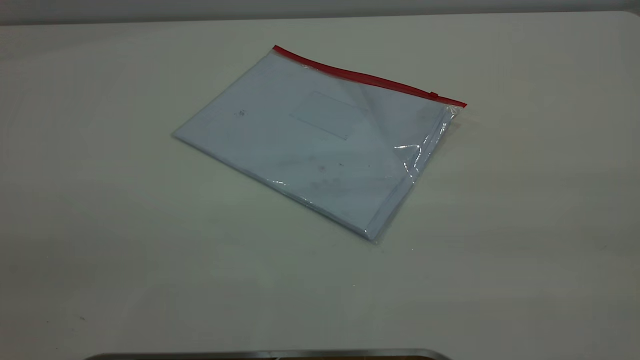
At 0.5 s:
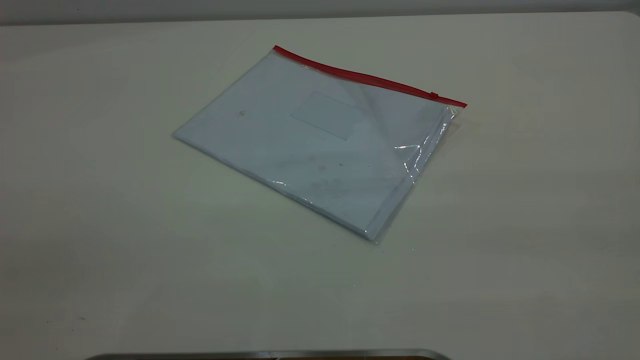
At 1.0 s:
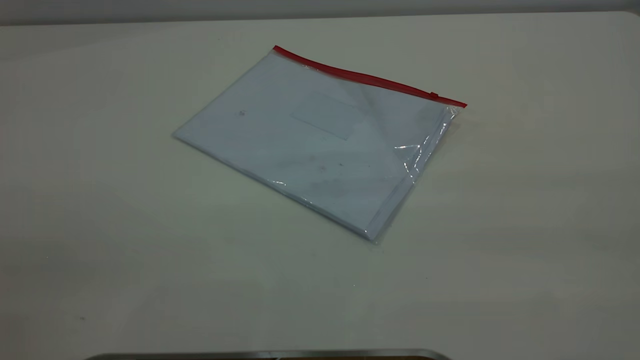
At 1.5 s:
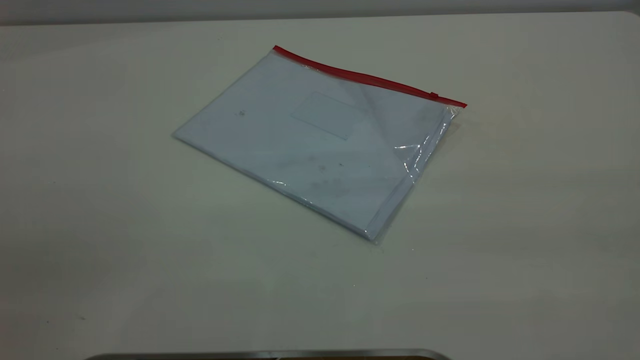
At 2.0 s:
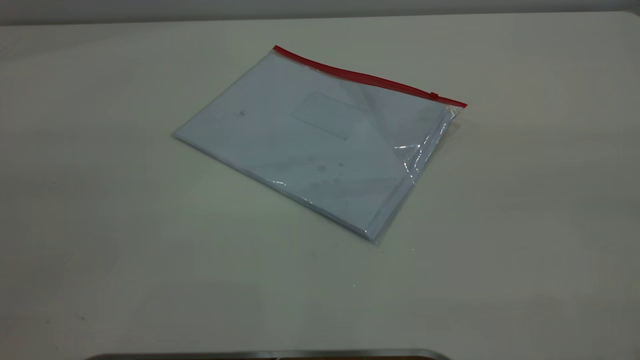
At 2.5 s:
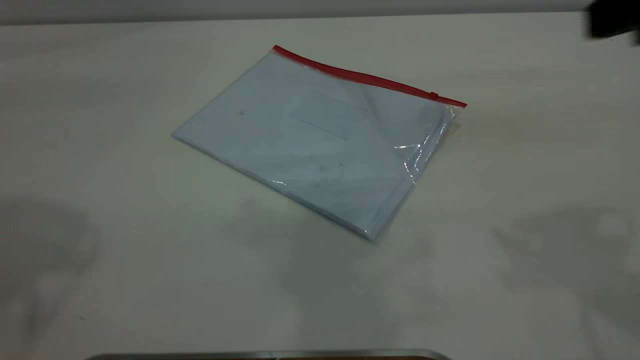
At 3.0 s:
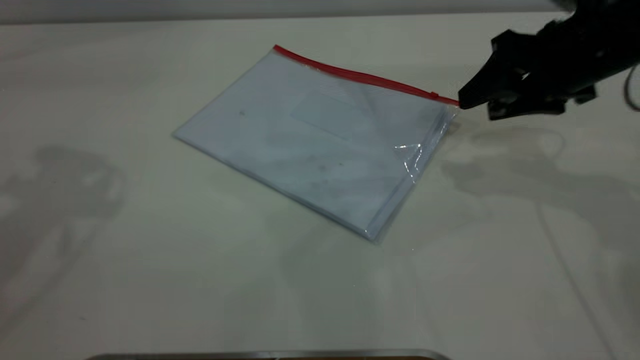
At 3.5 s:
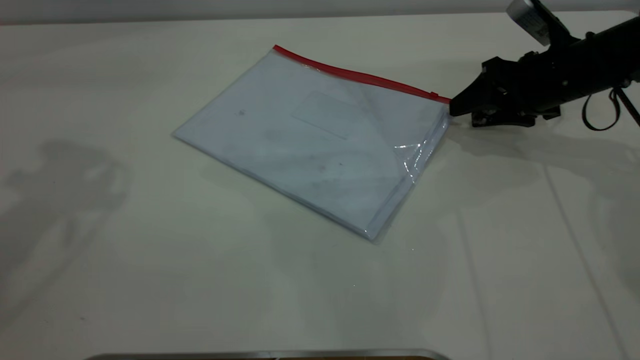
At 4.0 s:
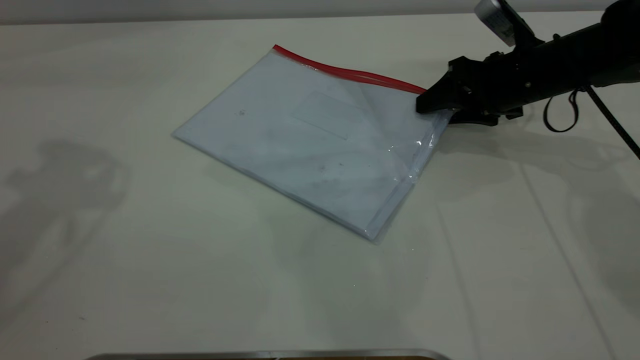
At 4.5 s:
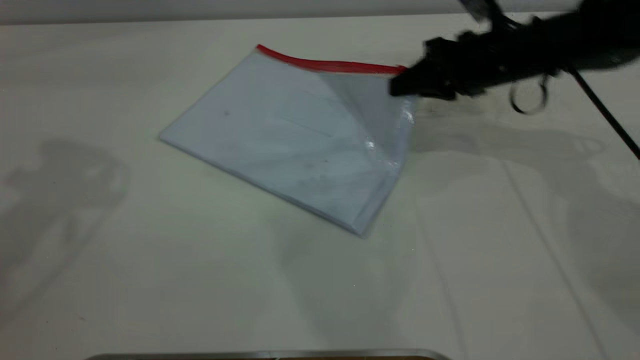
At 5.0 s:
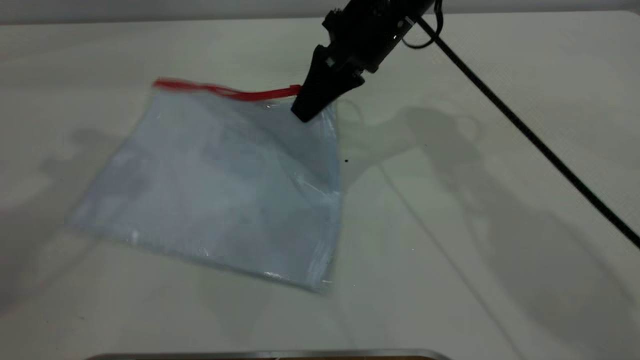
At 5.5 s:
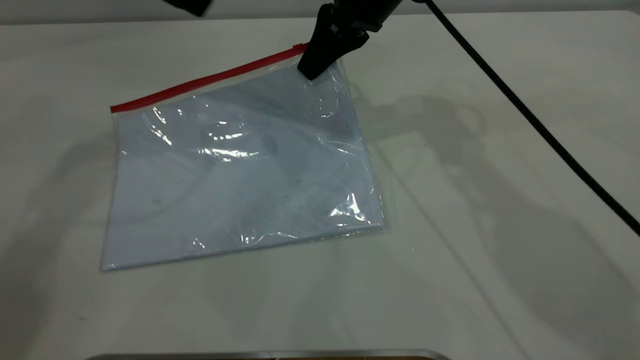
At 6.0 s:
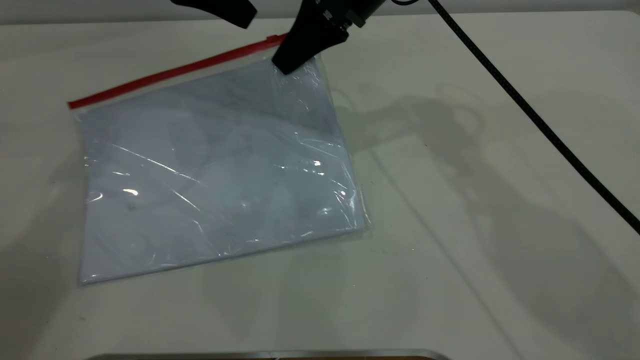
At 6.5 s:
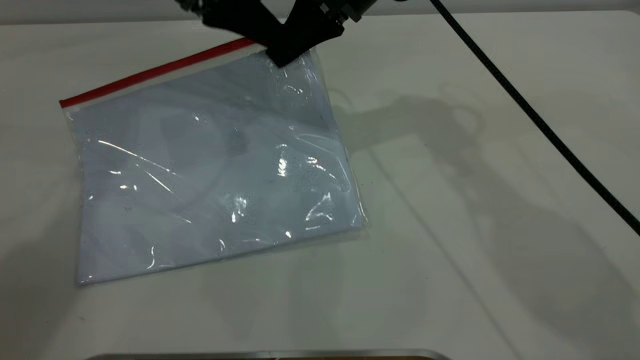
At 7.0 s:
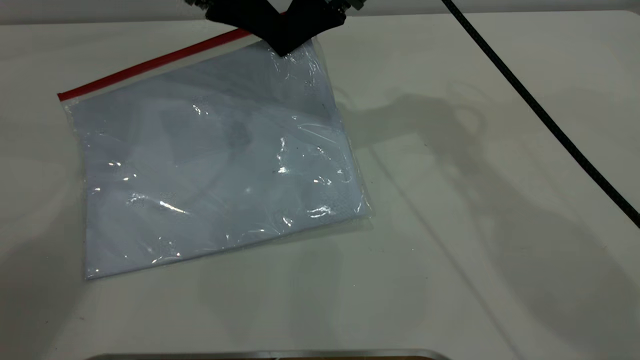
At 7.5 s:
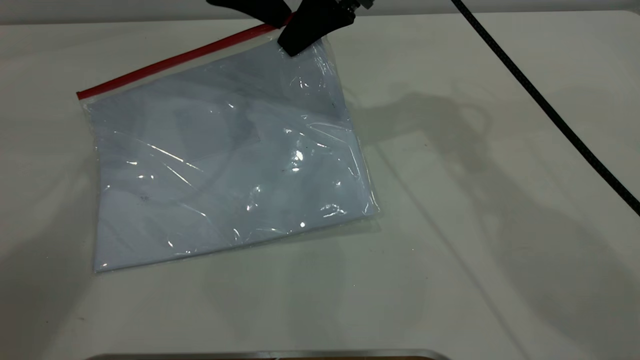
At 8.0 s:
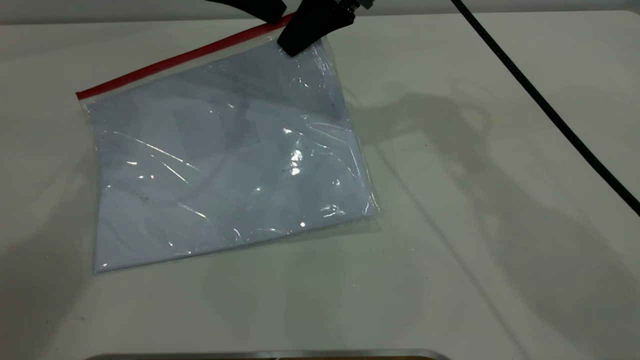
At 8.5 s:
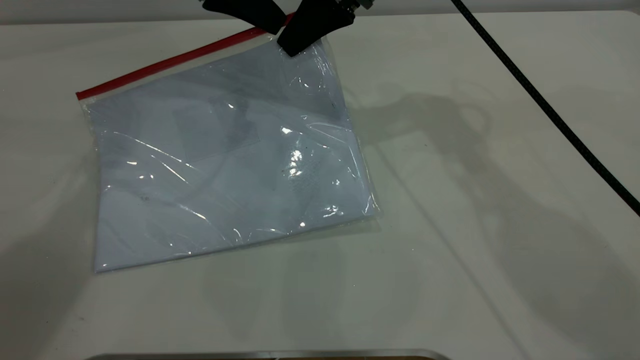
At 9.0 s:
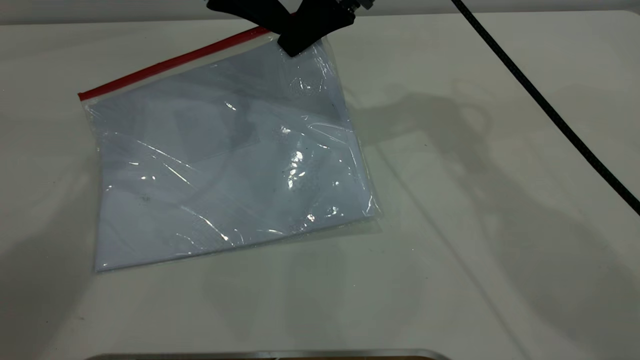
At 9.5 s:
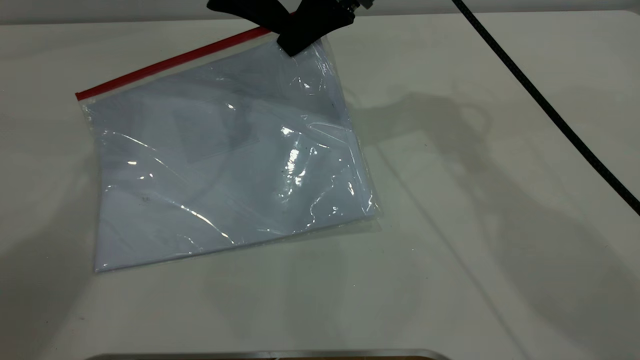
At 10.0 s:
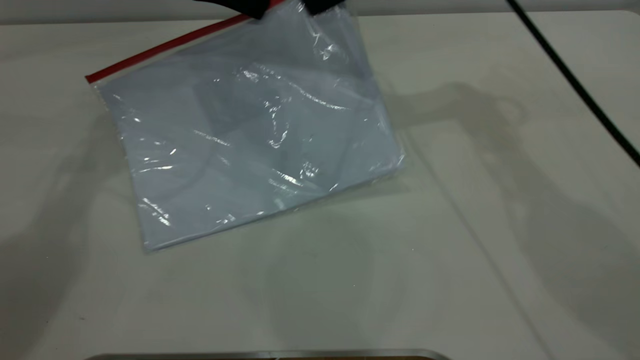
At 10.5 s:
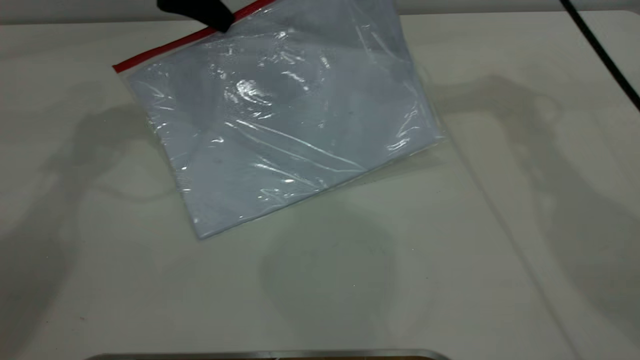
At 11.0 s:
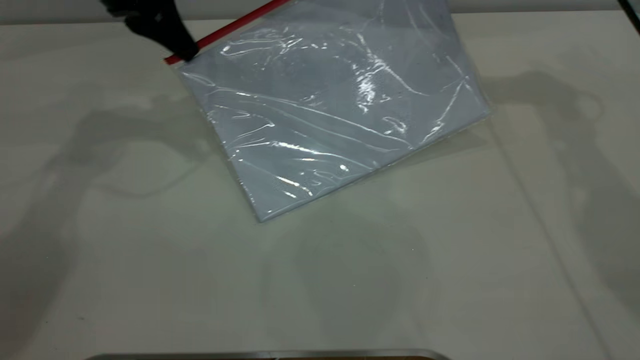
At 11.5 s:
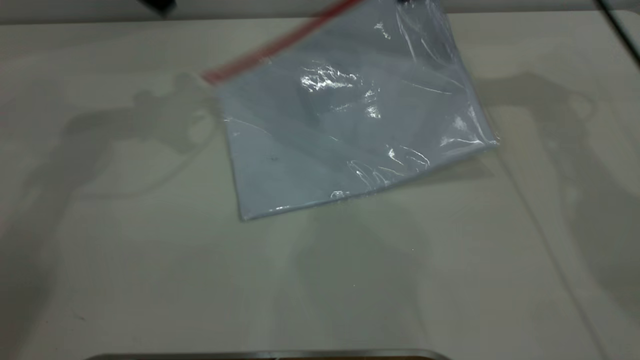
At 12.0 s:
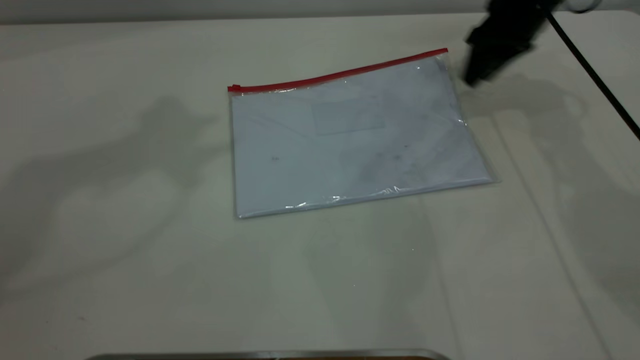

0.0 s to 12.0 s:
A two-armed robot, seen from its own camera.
Step, 0.0 to 5.5 s: Pick up the transparent plastic bag with the right gripper.
Step, 6.0 to 11.0 s: Pulling up the zipper on the transparent plastic bag with the left gripper to close it.
2.0 to 4.0 s: The right gripper moves forward and downward, roughly 50 cm.
4.0 to 6.0 s: The right gripper is displaced to the left and upward by roughly 20 cm, and closes its fingers. Meanwhile the left gripper travels downward, forward and to the right by some 20 cm.
6.0 to 8.0 s: The grippers make only small movements.
8.0 to 10.0 s: The right gripper moves approximately 5 cm; the left gripper closes up.
10.0 to 12.0 s: The left gripper goes approximately 25 cm upward, and opens. The right gripper goes approximately 15 cm to the right and downward, and opens its fingers.
